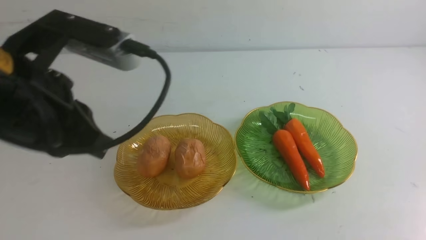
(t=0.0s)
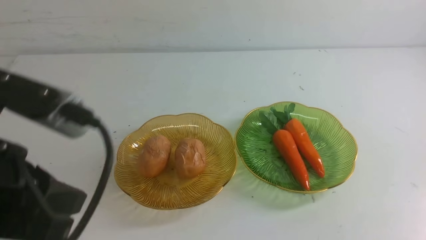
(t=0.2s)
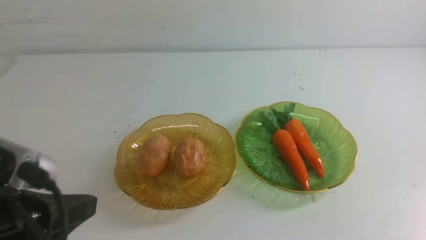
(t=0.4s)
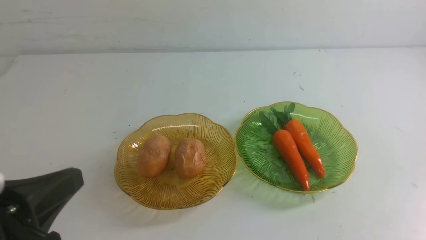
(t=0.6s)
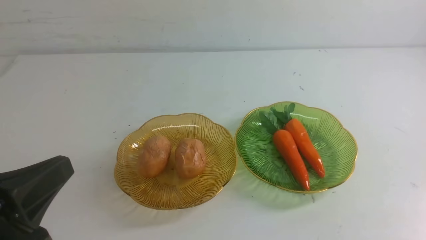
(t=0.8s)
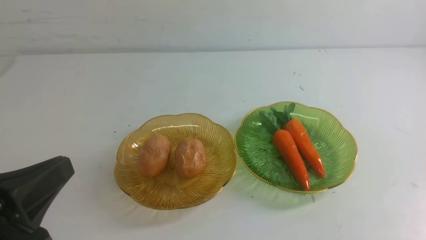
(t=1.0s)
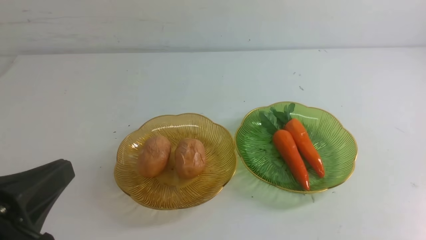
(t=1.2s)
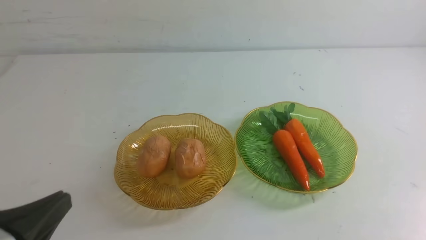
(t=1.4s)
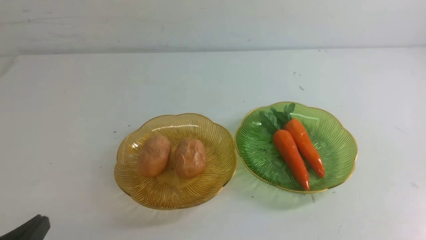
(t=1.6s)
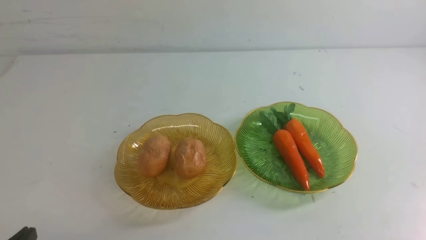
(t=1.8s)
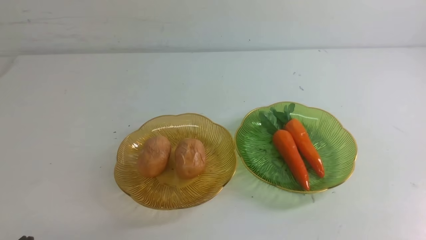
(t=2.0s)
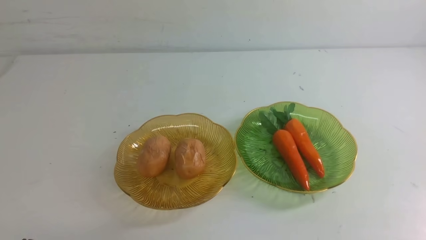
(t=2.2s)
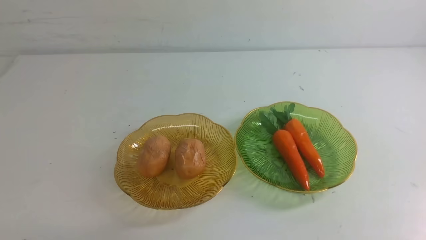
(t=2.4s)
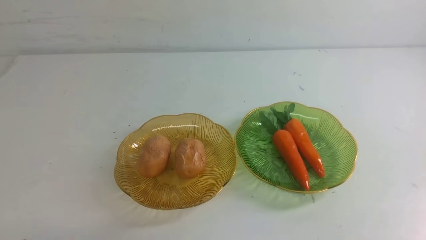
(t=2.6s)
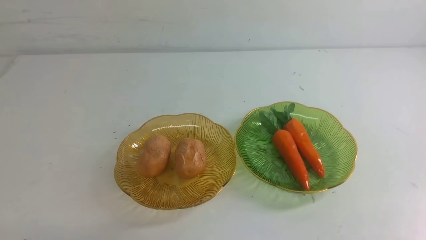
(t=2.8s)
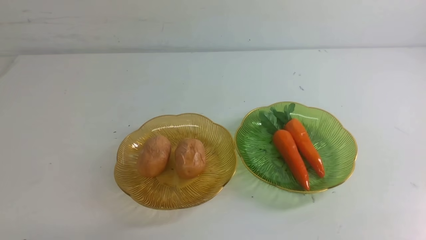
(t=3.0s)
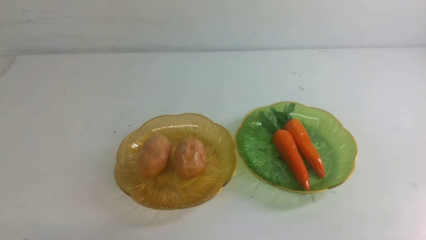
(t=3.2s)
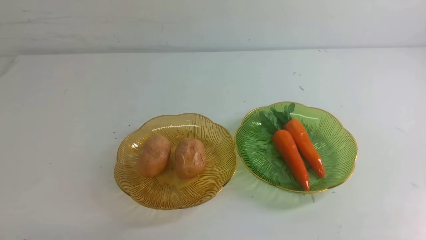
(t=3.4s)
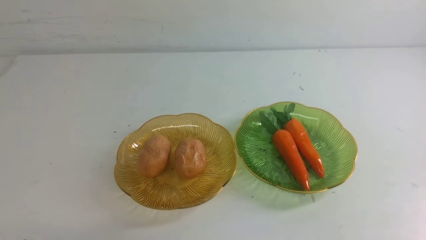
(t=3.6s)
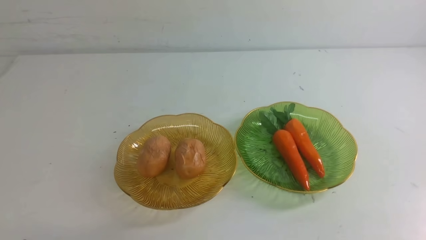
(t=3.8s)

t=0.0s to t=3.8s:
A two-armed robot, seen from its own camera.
t=0.0s to t=1.2s: The left gripper moves downward and backward, about 15 cm.
t=1.2s to t=2.6s: The grippers make only small movements.
t=2.6s to t=3.8s: Both grippers stay about where they are.
